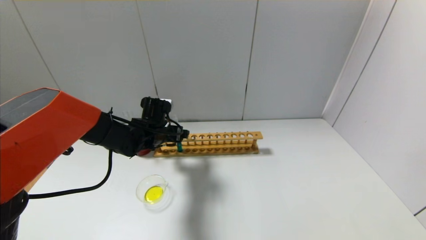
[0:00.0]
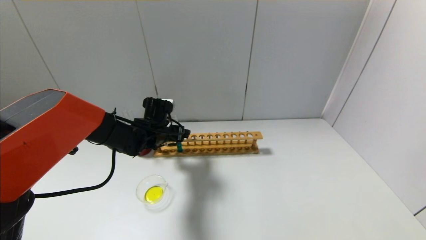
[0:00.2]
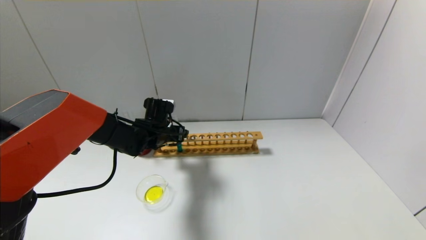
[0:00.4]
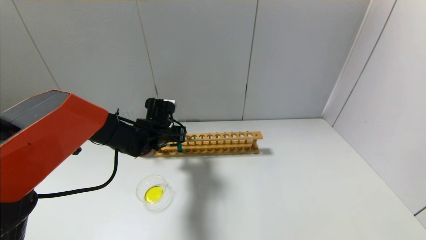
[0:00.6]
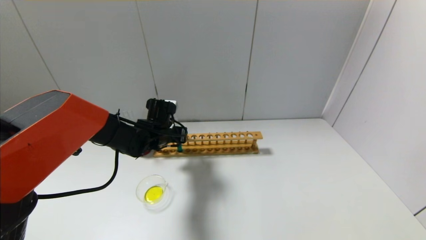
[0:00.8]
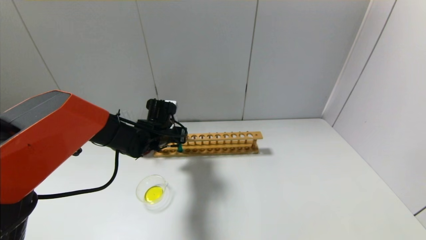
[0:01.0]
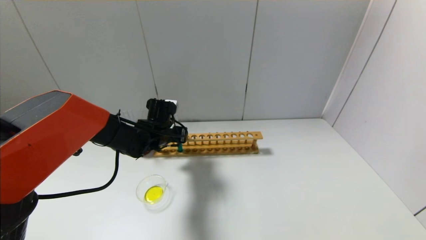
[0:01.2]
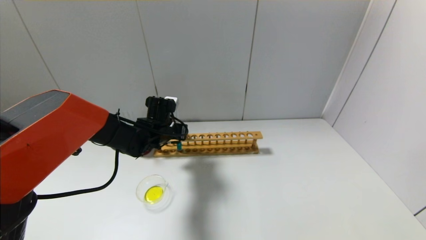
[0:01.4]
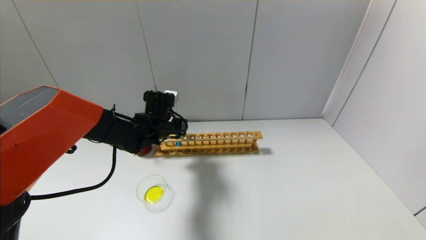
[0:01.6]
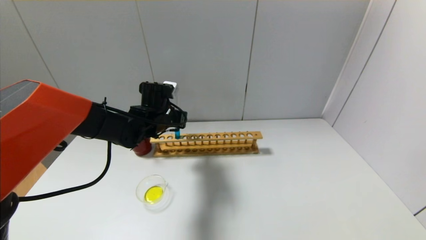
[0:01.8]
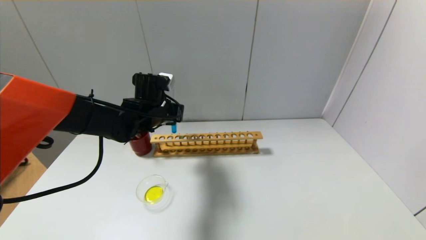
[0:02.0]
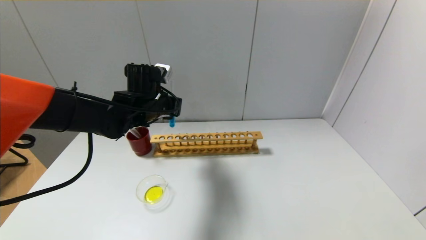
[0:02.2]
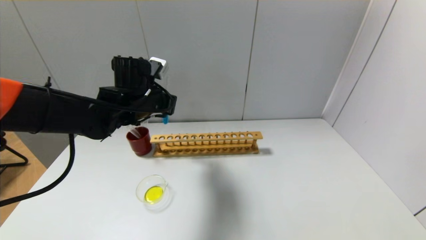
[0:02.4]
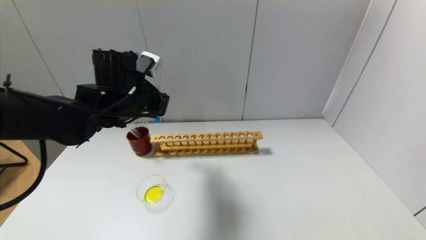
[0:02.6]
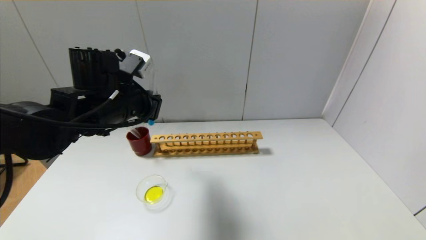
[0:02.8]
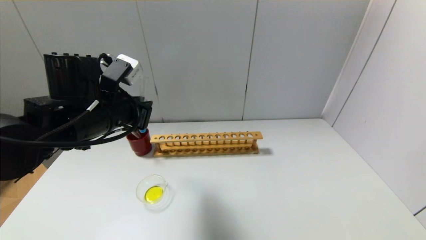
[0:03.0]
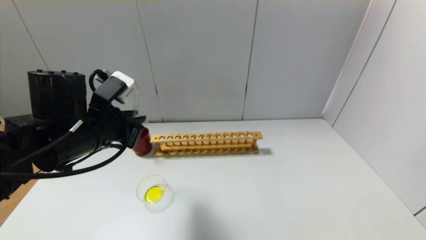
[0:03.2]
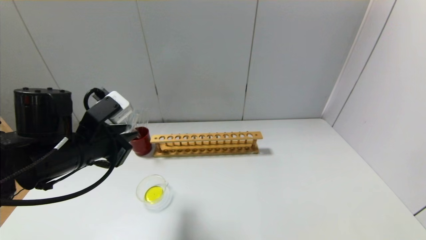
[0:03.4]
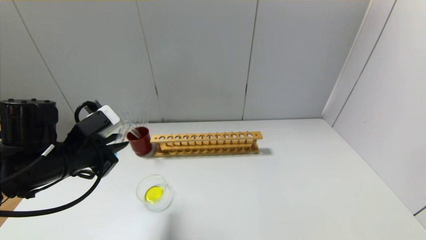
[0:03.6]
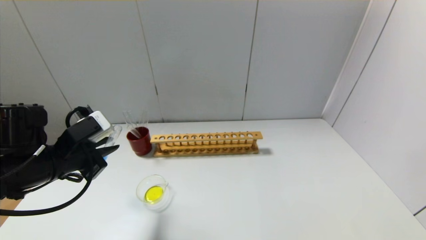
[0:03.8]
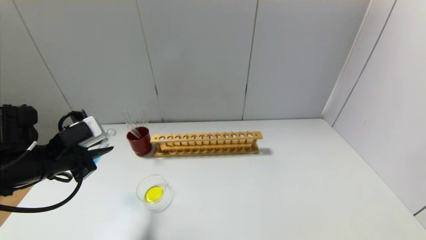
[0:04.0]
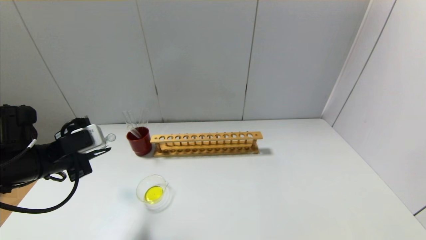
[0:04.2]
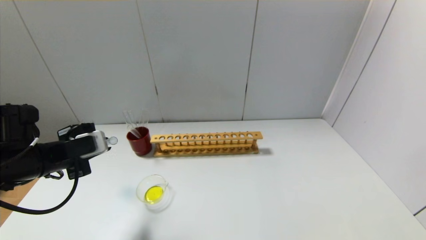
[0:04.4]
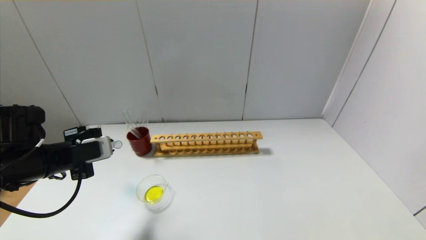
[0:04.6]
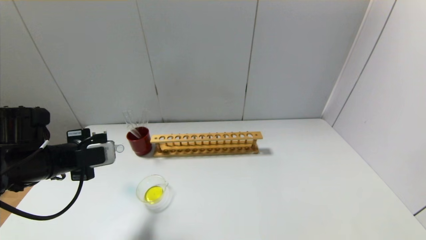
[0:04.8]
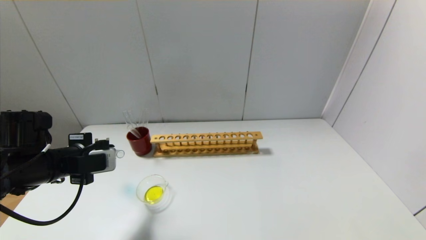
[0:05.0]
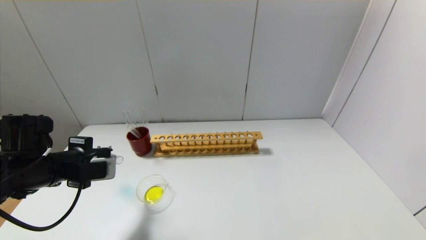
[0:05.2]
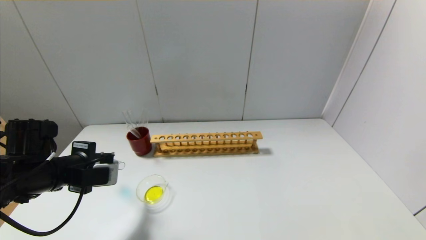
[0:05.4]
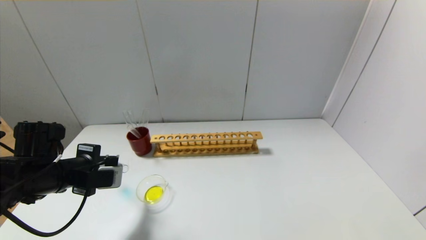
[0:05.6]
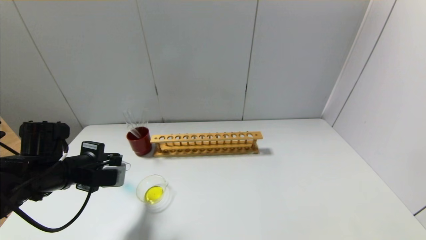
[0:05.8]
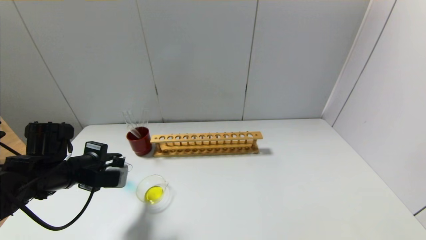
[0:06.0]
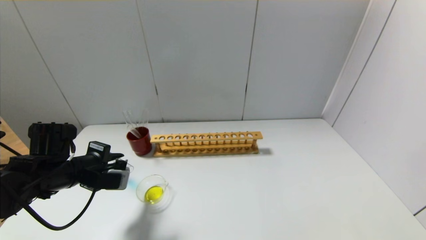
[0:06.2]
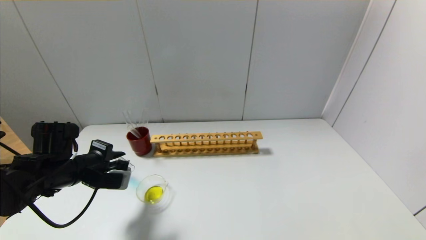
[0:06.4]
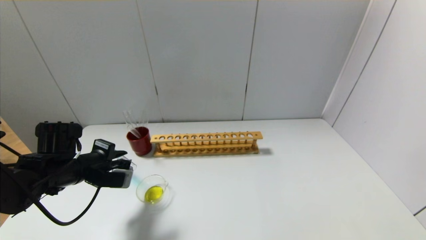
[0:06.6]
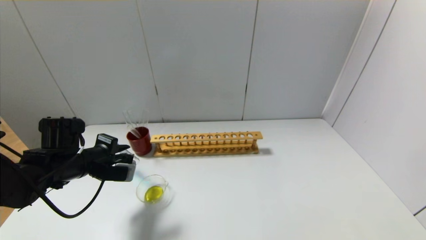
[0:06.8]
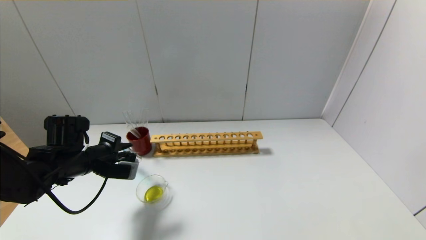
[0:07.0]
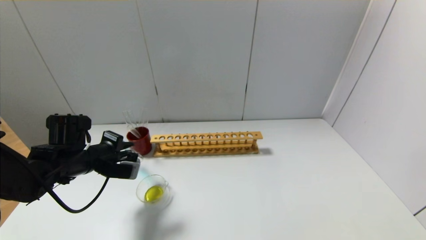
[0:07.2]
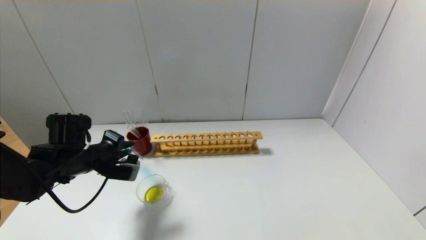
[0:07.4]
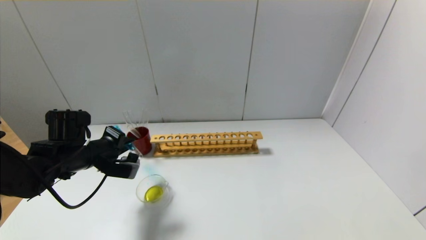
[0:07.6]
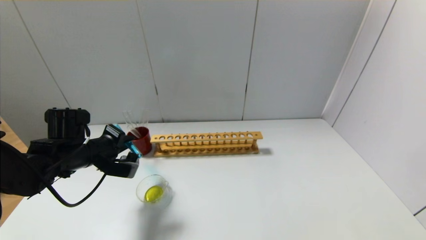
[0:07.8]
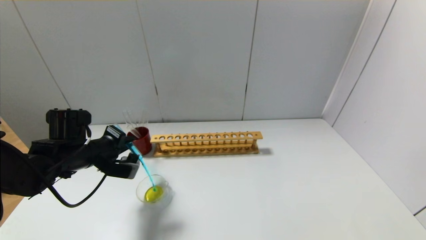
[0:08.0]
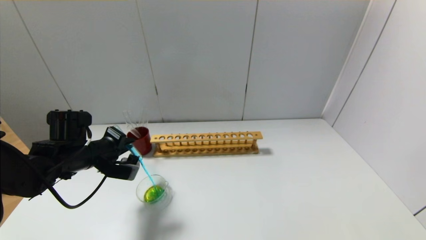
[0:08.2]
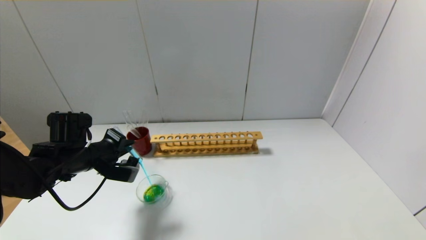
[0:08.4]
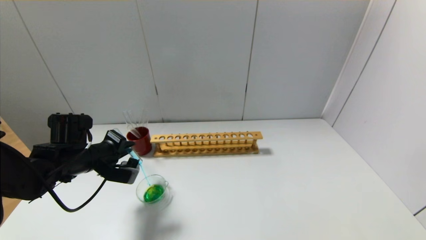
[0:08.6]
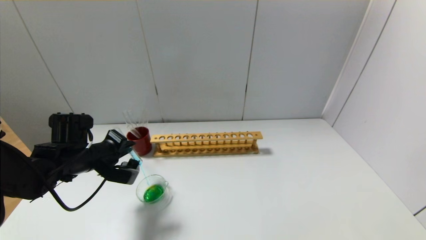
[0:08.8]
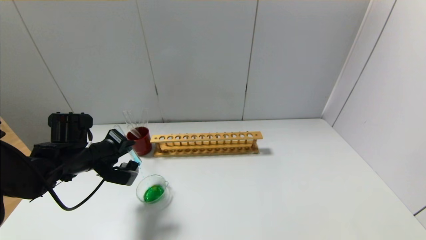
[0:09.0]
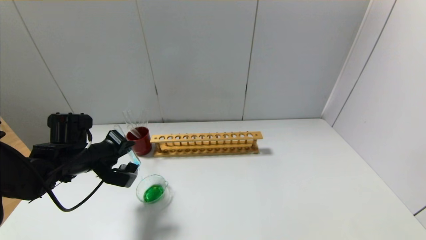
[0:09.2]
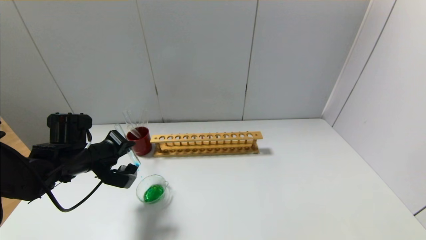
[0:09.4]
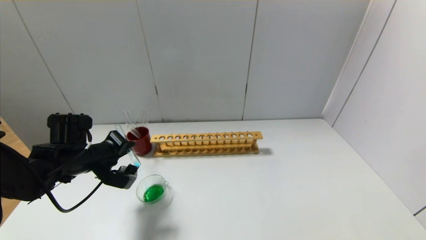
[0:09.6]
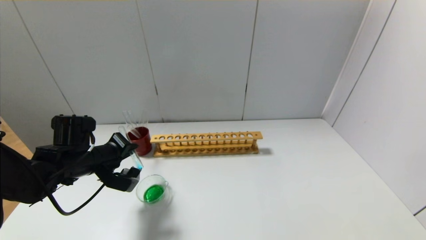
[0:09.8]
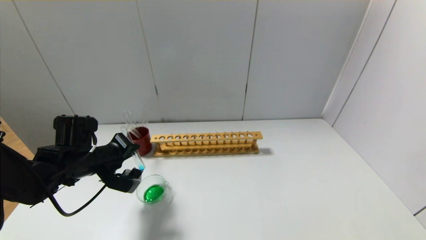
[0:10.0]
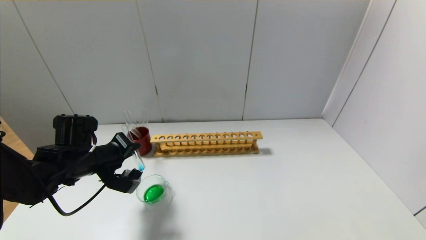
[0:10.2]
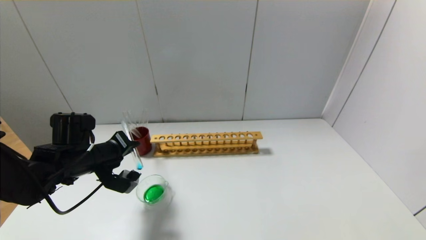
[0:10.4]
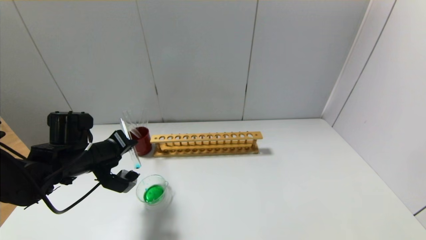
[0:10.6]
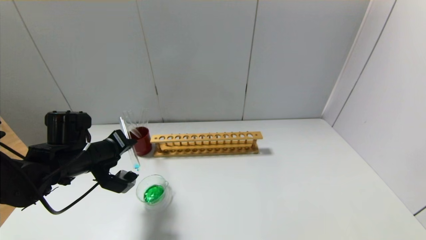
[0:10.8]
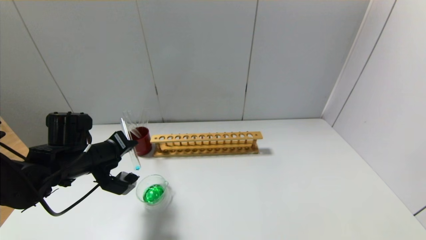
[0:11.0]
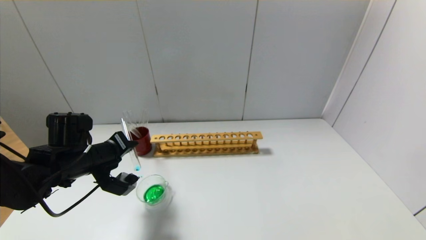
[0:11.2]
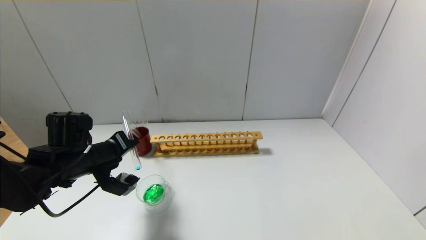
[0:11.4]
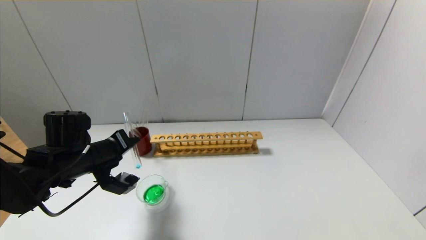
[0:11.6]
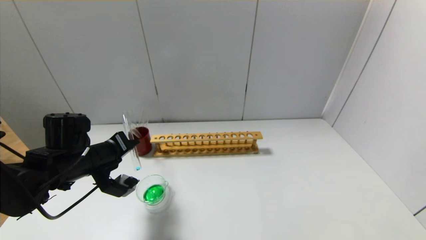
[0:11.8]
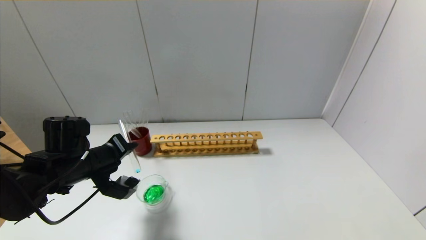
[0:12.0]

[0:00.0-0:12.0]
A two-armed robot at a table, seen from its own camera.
Step, 0:01.0 to 0:12.0: Pour the blue reagent into the graduated cylinder with the left gripper.
0:00.0 to 0:01.6: The left gripper closes.
0:01.6 to 0:03.0: The left gripper goes approximately 15 cm backward and upward.
0:03.0 to 0:04.4: The left gripper goes approximately 15 cm to the left and downward.
0:04.4 to 0:06.0: The left gripper ends up approximately 5 cm from where it was.
0:06.0 to 0:07.6: The grippers make only small movements.
0:07.6 to 0:10.4: There are only small adjustments of the grippers.
0:10.4 to 0:12.0: There are only small adjustments of the grippers.

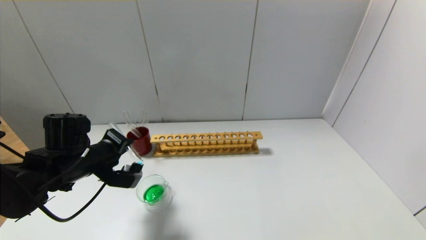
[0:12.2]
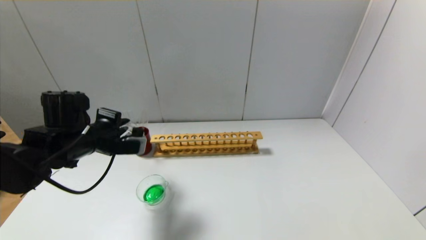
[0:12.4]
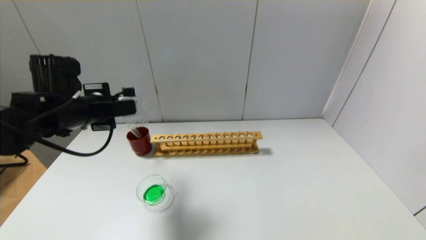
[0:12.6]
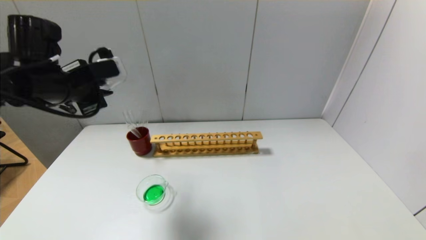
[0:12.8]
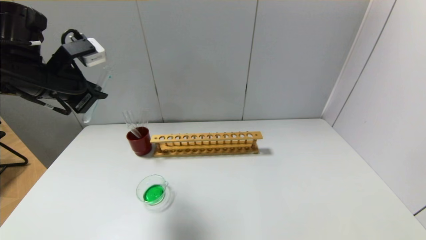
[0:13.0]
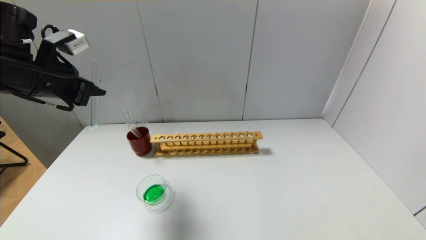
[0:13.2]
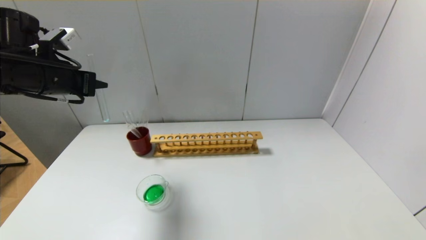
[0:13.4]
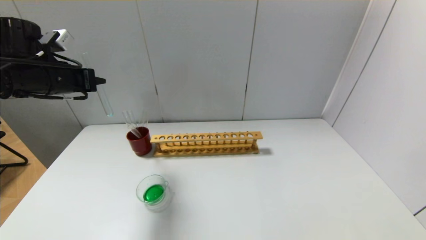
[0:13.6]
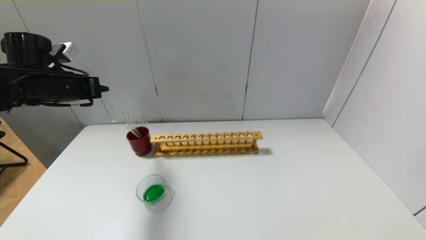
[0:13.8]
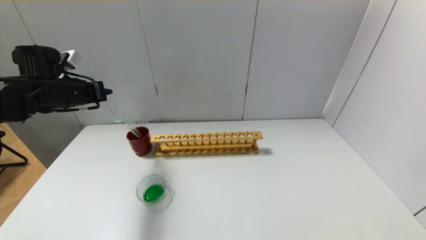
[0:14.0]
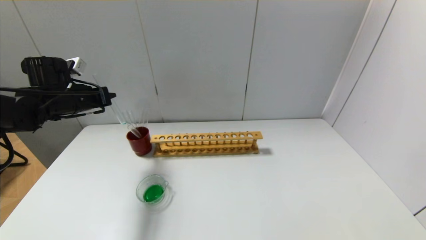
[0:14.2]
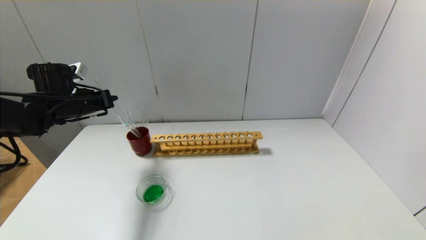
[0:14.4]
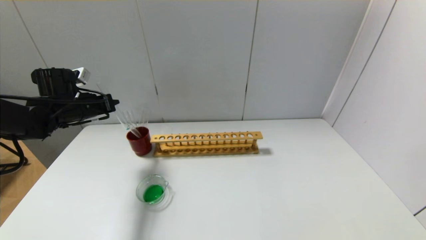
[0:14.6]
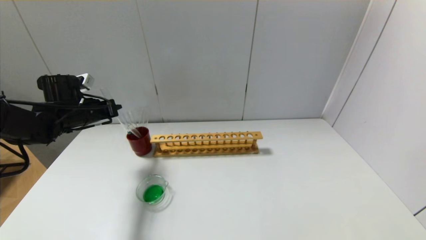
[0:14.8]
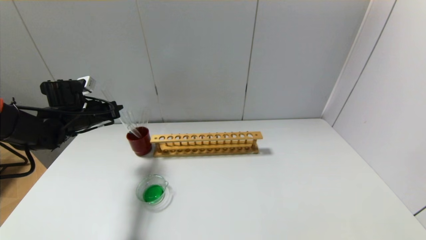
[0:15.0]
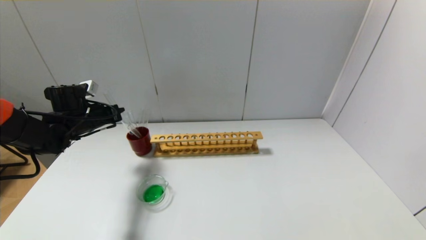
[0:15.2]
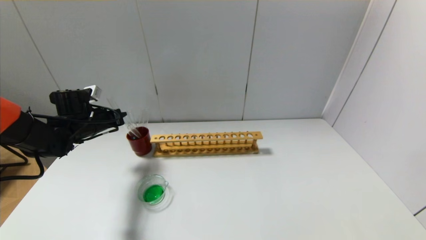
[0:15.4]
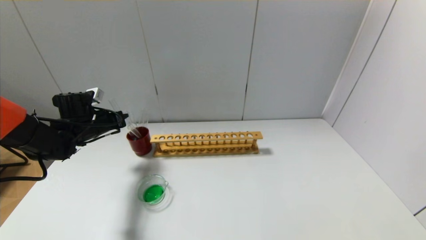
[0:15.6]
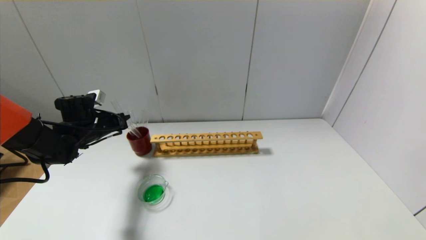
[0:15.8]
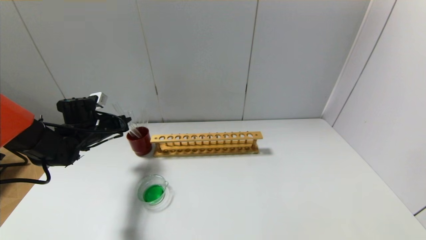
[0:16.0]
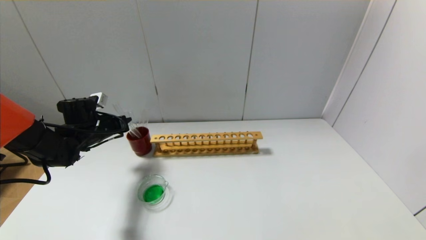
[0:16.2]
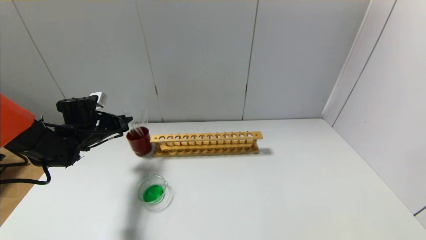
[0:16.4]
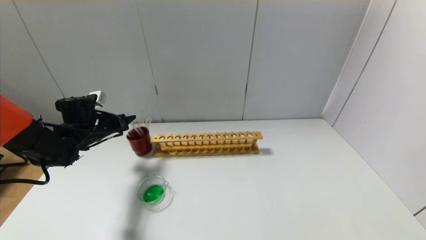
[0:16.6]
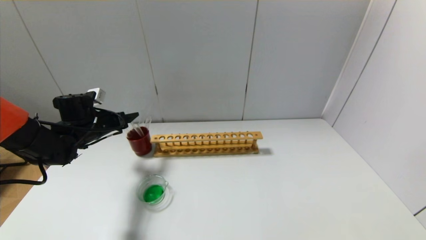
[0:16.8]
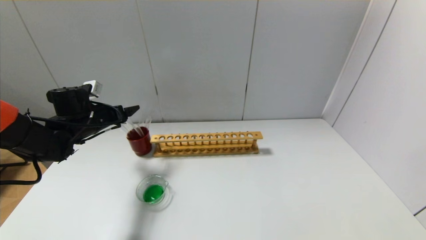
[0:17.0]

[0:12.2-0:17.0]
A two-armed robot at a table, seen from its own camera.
Step, 0:12.2 to 0:16.6: Place the test tube into the brown cup with the left gripper.
0:12.2 to 0:13.8: The left gripper is displaced upward, forward and to the left by roughly 15 cm.
0:13.8 to 0:15.4: The left gripper travels downward by some 10 cm.
0:15.4 to 0:17.0: The left gripper opens.
